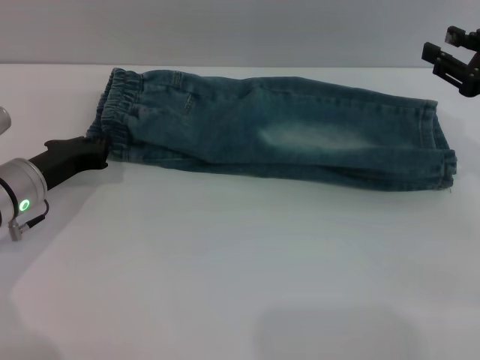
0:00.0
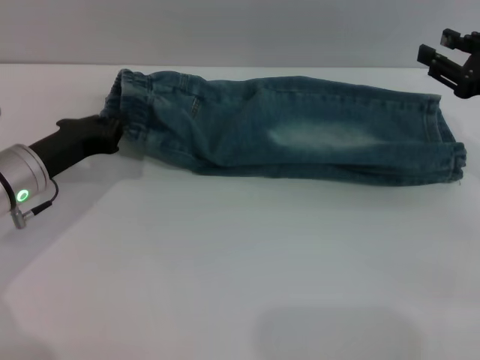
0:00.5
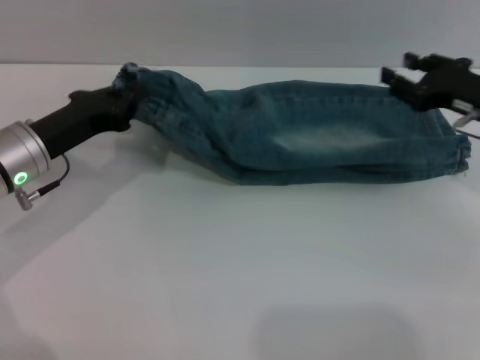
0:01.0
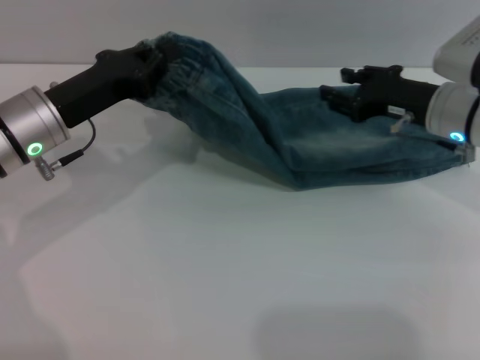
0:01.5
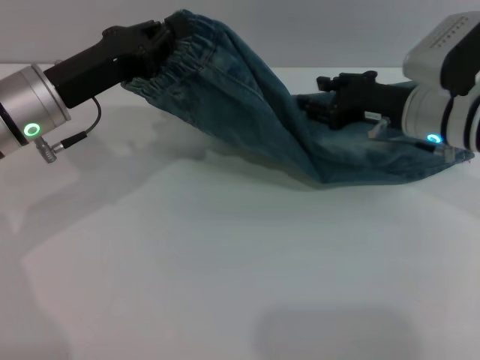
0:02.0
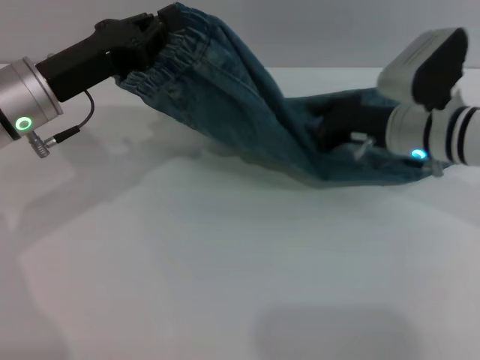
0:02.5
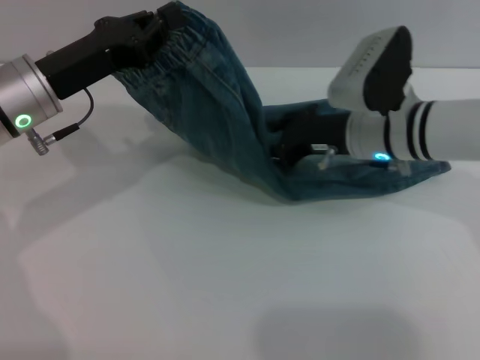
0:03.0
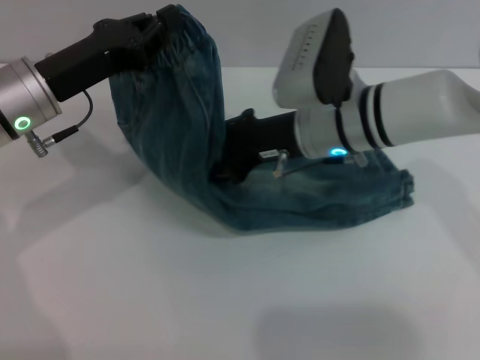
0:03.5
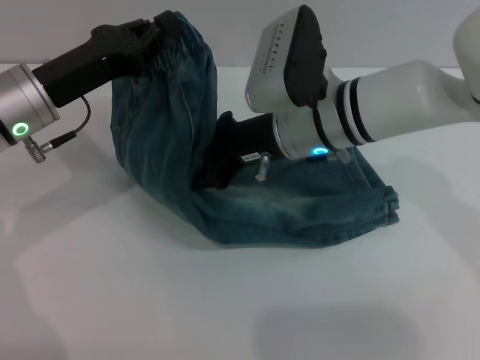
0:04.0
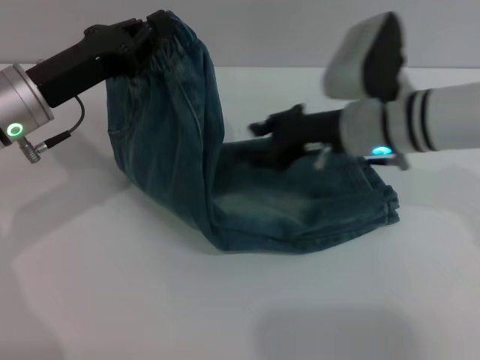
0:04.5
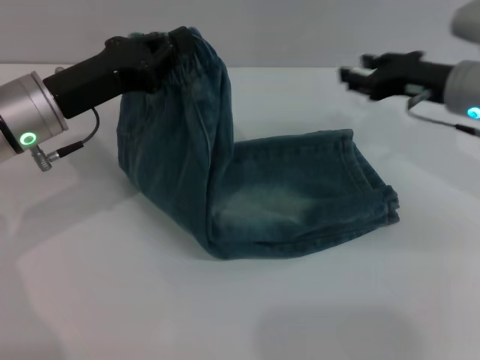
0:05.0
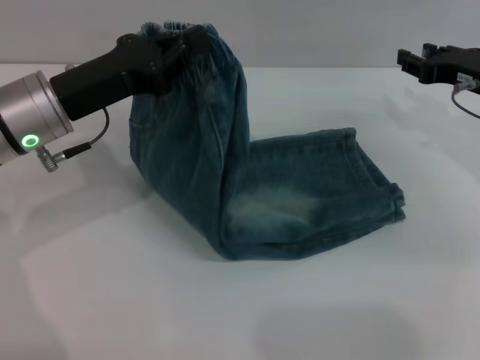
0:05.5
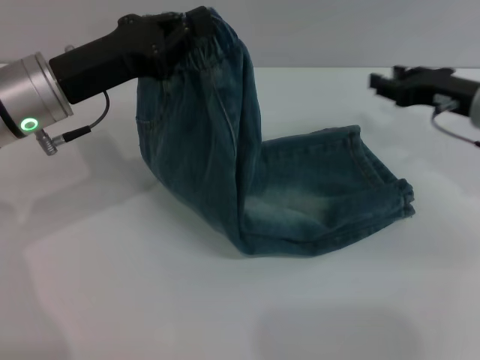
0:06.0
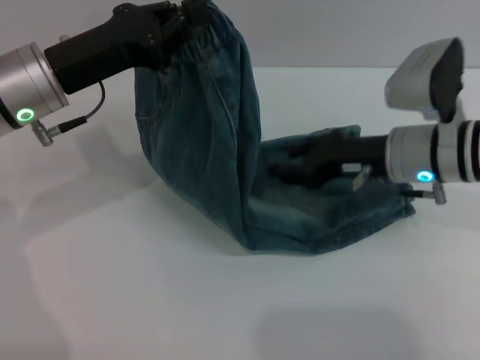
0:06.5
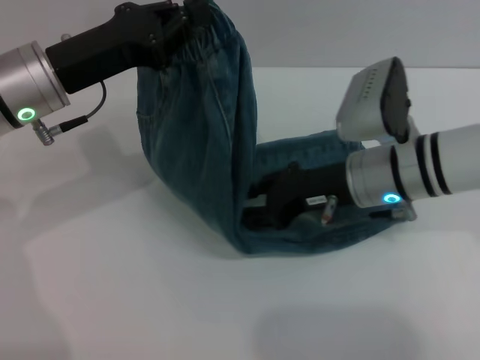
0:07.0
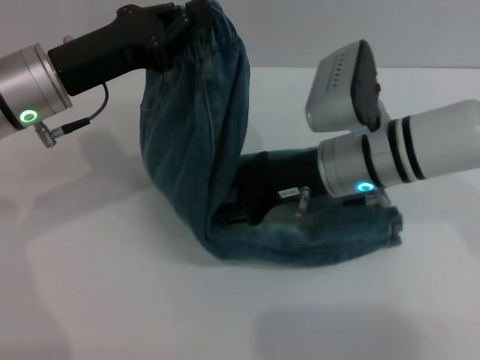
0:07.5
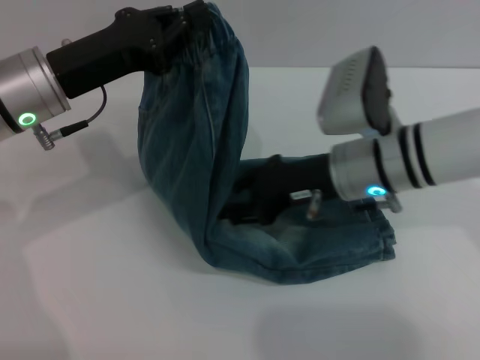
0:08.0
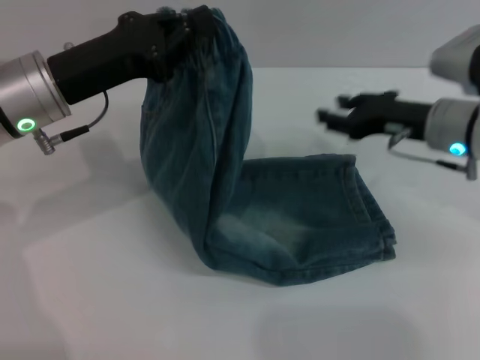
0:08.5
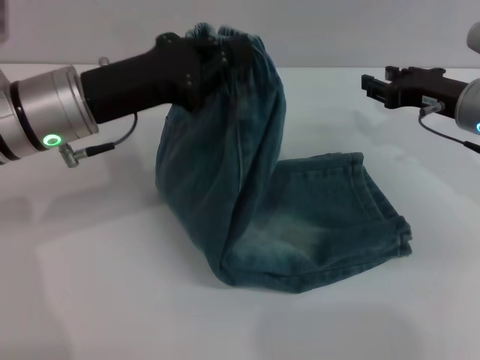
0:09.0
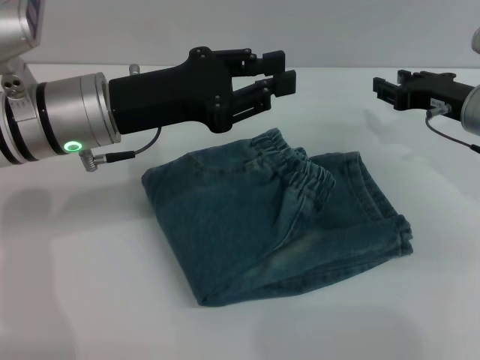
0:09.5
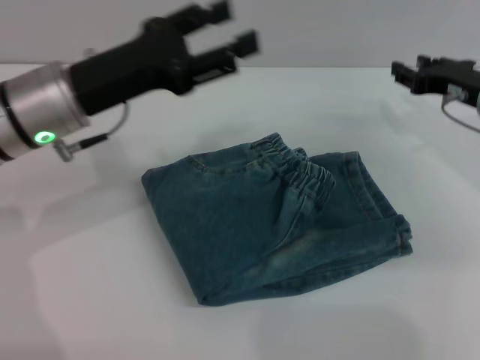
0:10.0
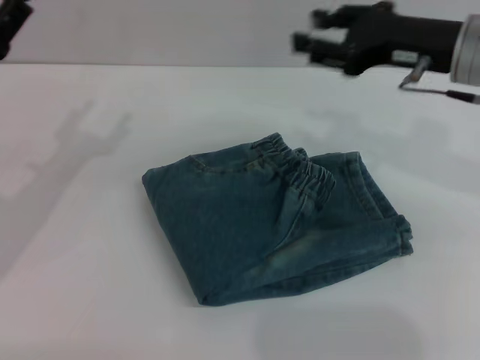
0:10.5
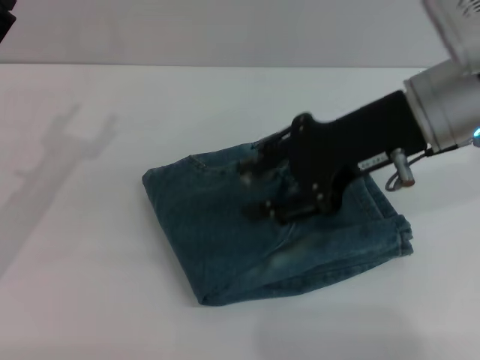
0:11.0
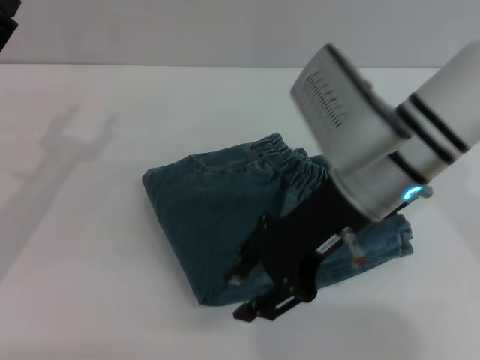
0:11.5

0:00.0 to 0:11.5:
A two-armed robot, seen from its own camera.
Step, 0:00.0 to 0:09.5: Fold the pants from left to right with the left gripper.
0:00.0 to 0:02.0: The right gripper travels to the left and forward by some 15 cm; the left gripper goes about 10 cm upward.
0:02.0 to 0:04.0: The right gripper goes some 15 cm to the left.
0:04.0 to 0:06.0: The right gripper heads to the right, covering about 20 cm.
0:06.0 to 0:07.5: The right gripper shifts roughly 15 cm to the left.
0:07.5 to 0:09.5: The right gripper heads to the right, covering about 15 cm.
0:09.5 to 0:11.5: The left gripper moves to the left and downward, some 15 cm, and opens. Meanwhile the right gripper travels to the left, upward and backward by some 20 cm.

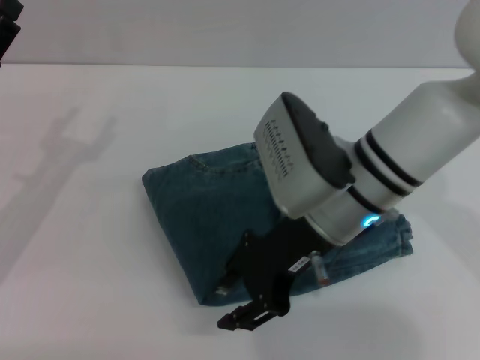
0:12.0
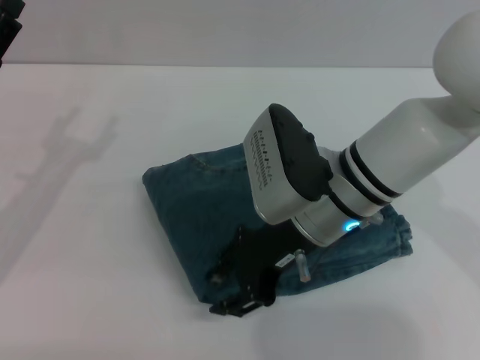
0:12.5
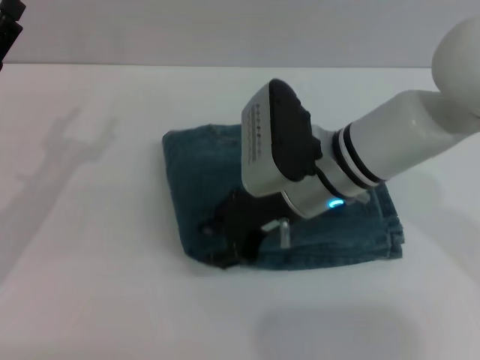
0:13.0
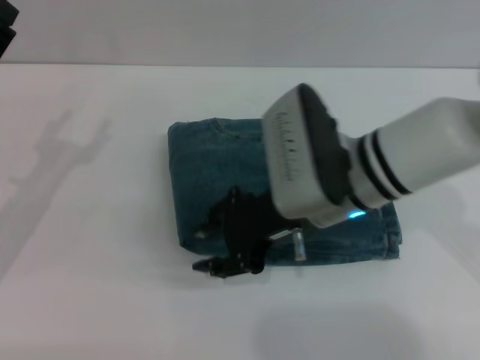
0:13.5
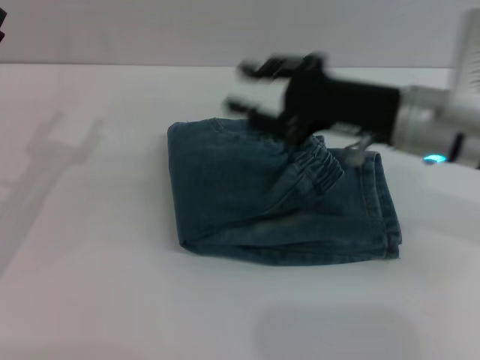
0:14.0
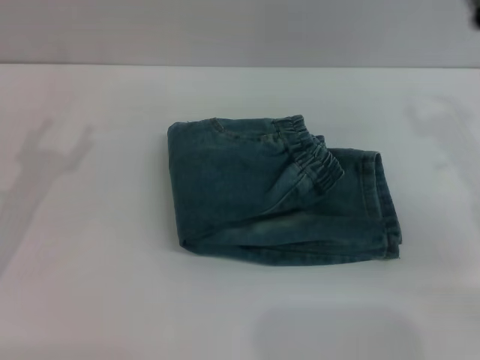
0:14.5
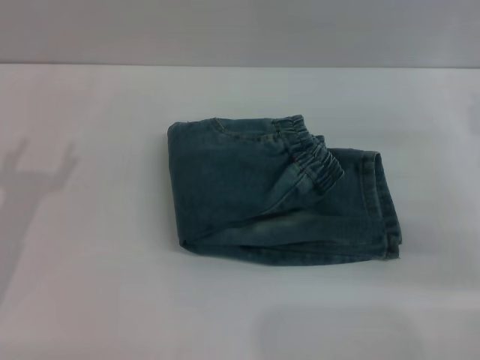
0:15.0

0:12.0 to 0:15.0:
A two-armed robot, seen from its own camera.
0:12.0 to 0:13.5: The grippers stay close to where they were, moving slightly.
0:13.5 to 0:15.0: The right gripper travels to the right by about 25 cm. Meanwhile the left gripper ends up about 5 cm from where it was.

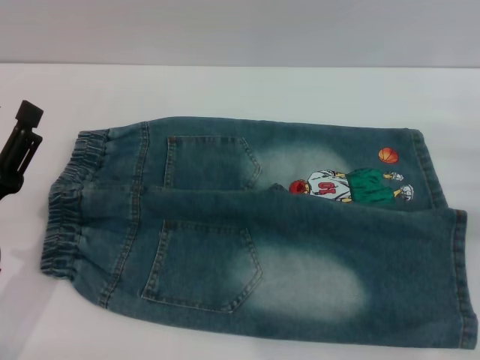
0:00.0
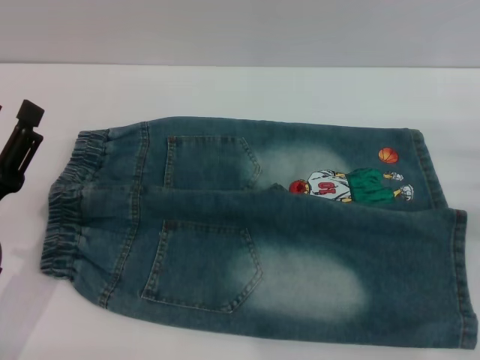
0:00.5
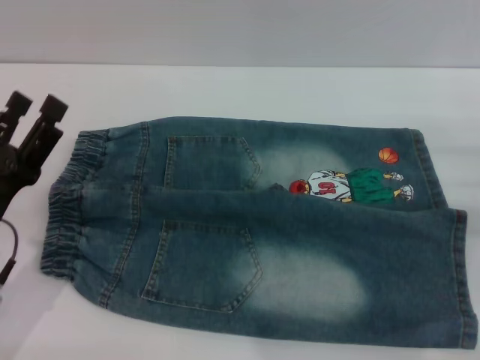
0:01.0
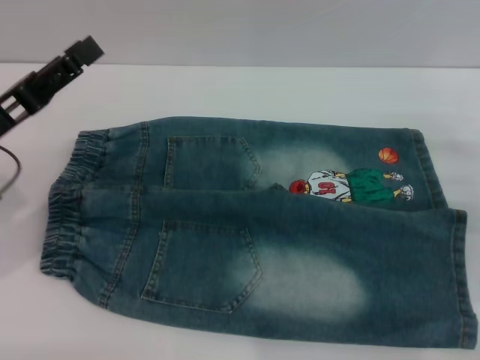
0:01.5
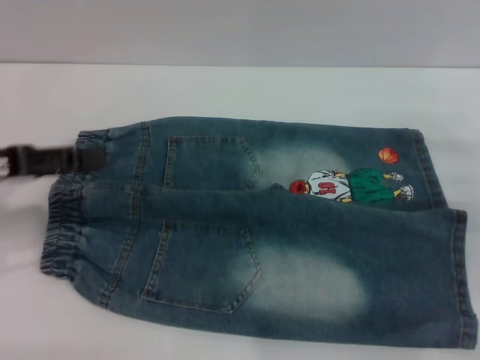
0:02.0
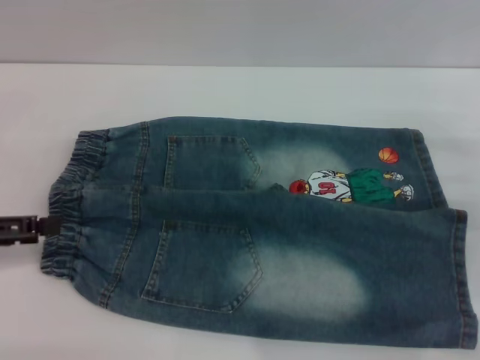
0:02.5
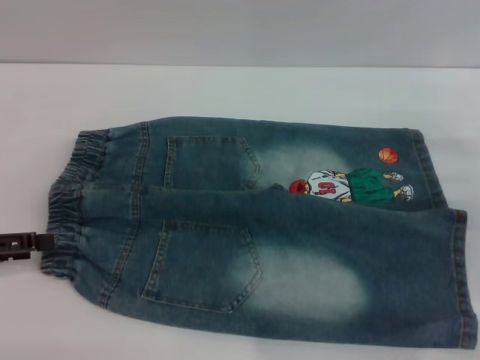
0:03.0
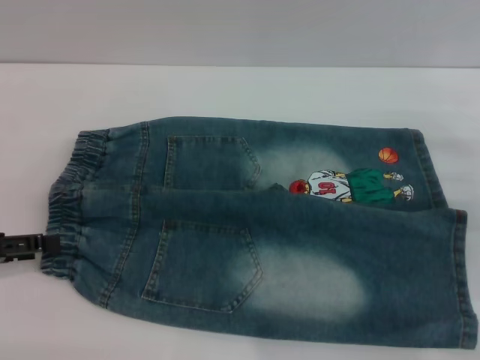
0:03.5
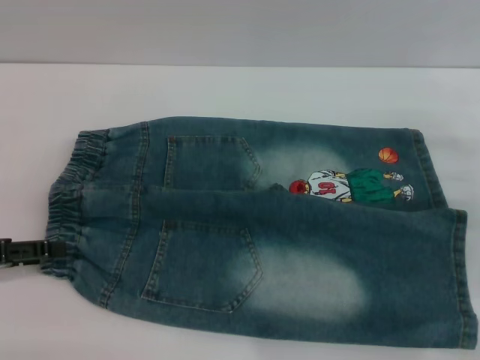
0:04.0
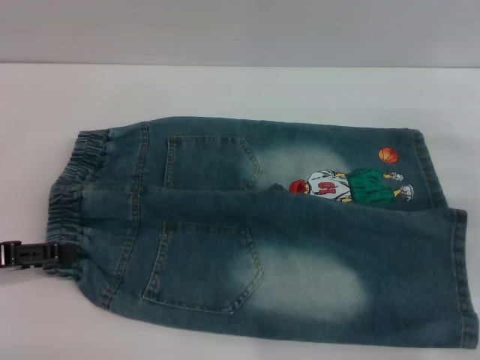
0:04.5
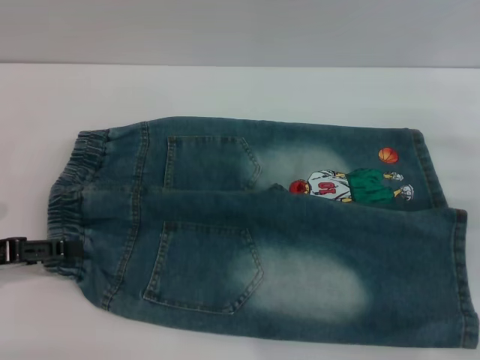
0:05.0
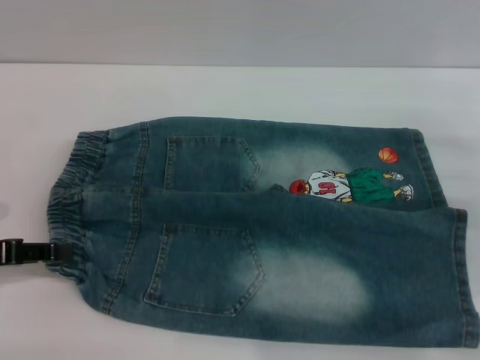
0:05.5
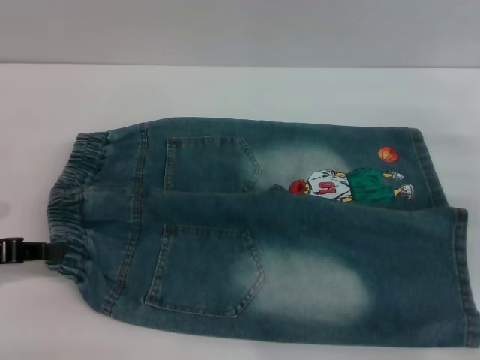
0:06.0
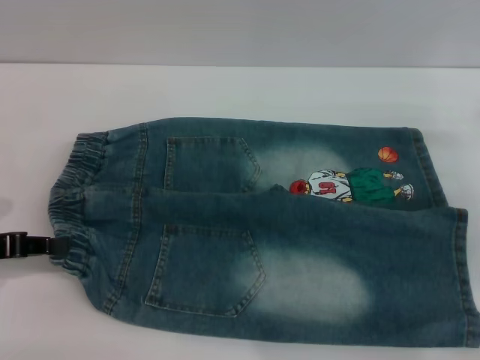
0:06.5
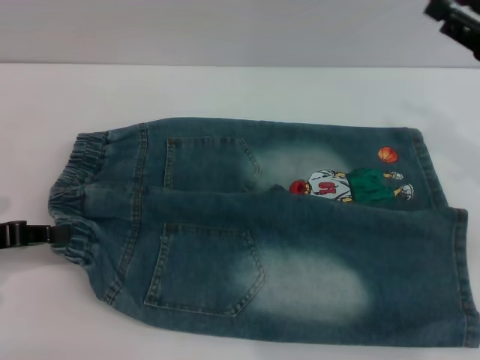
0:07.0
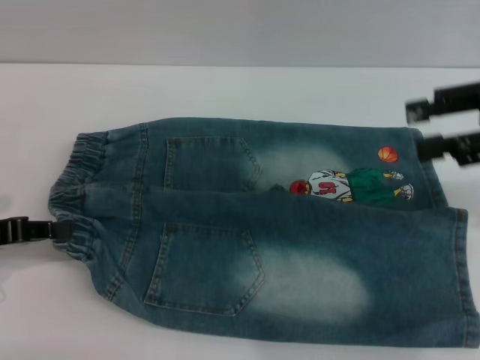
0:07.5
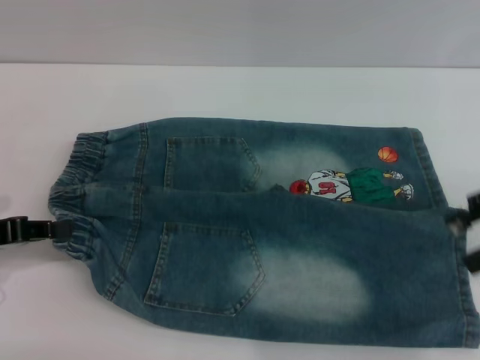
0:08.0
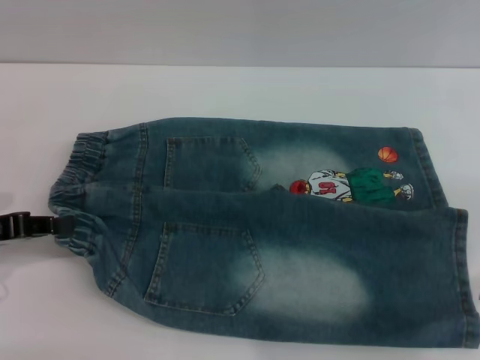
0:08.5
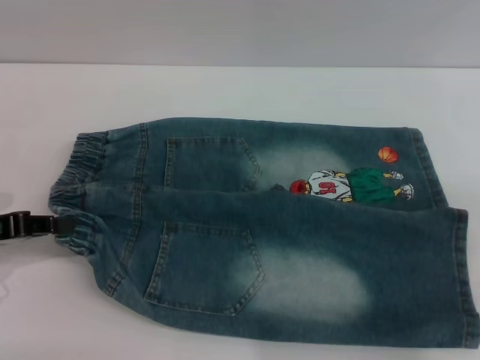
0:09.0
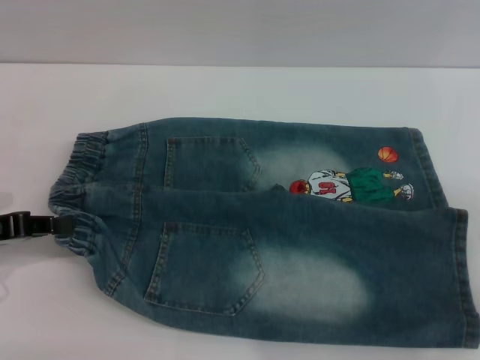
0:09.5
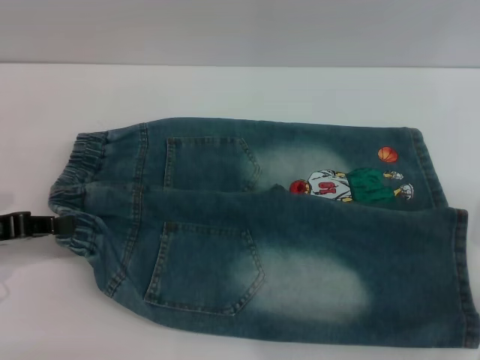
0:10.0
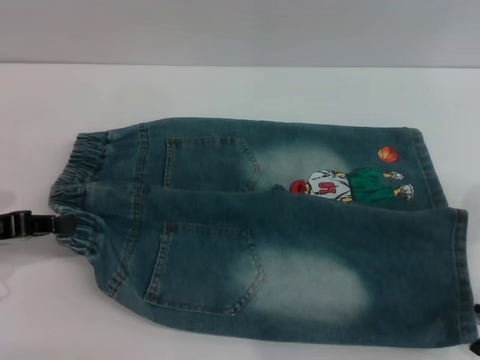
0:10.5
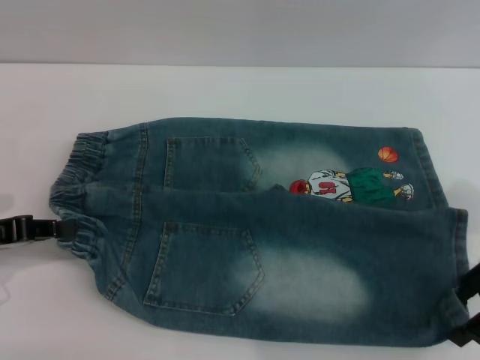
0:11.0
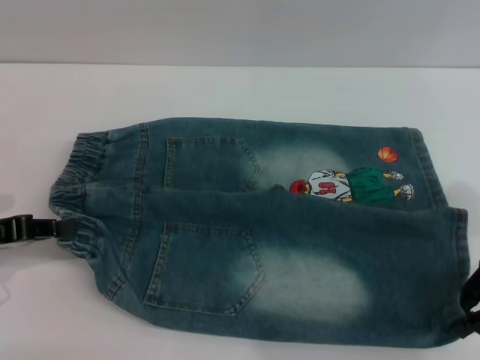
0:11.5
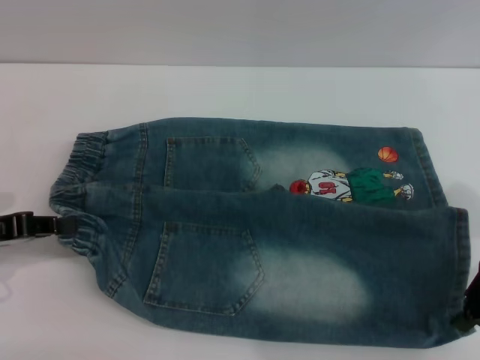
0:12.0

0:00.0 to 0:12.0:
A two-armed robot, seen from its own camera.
0:00.0 to 0:02.0: The left gripper moves upward, forward and to the left, approximately 15 cm.
0:02.0 to 0:04.0: The left gripper travels downward by roughly 5 cm.
0:04.0 to 0:06.0: The left gripper closes its fingers.
0:06.0 to 0:08.0: The right gripper travels upward by approximately 15 cm.
0:08.0 to 0:10.0: The right gripper is displaced downward by roughly 10 cm.
0:10.0 to 0:12.0: The right gripper closes its fingers.
